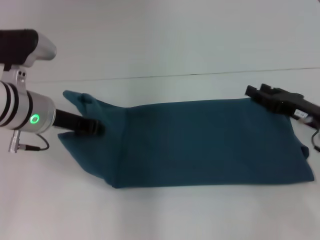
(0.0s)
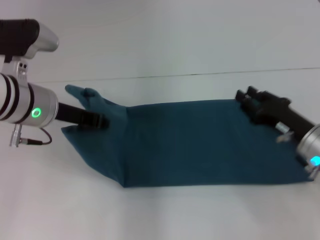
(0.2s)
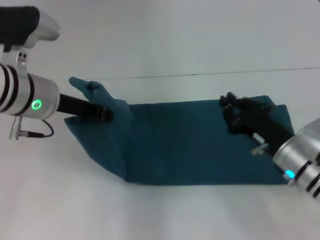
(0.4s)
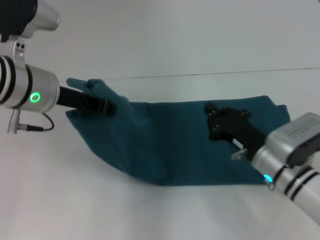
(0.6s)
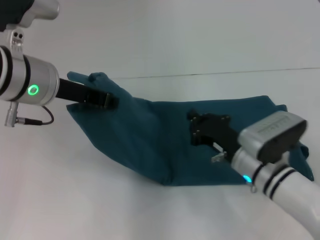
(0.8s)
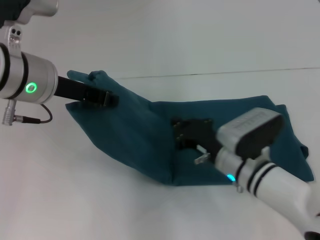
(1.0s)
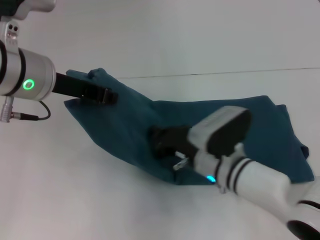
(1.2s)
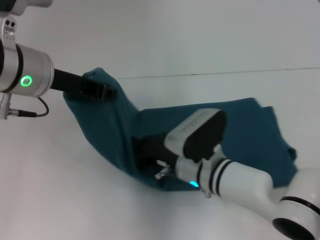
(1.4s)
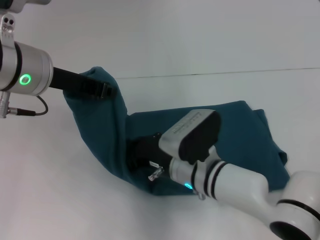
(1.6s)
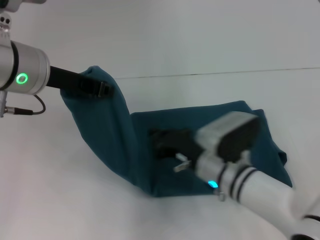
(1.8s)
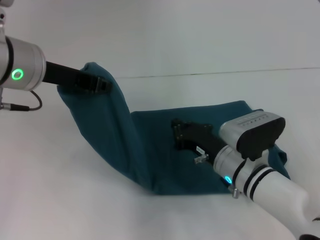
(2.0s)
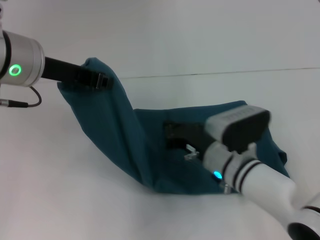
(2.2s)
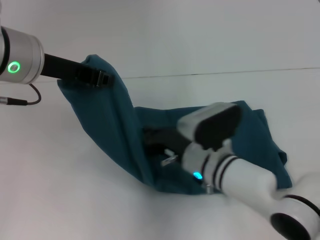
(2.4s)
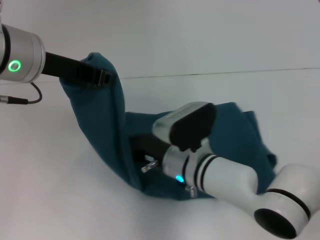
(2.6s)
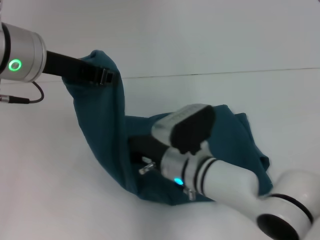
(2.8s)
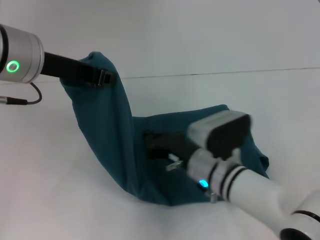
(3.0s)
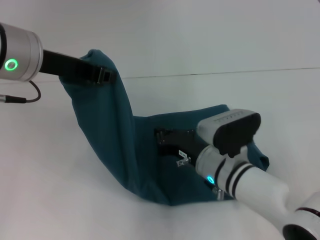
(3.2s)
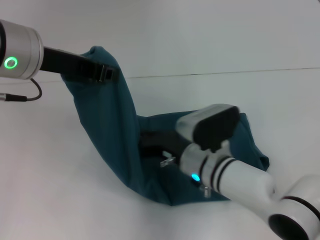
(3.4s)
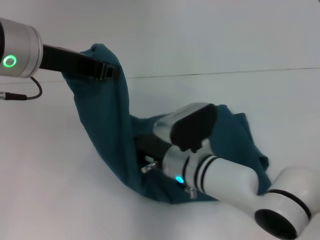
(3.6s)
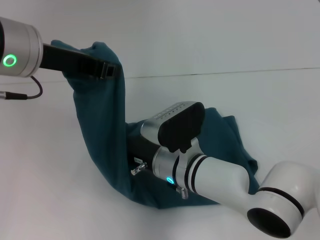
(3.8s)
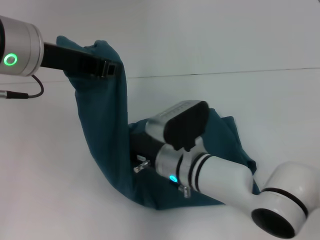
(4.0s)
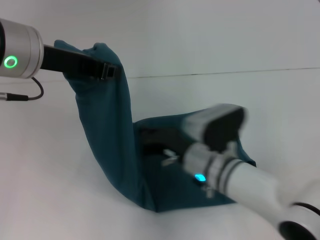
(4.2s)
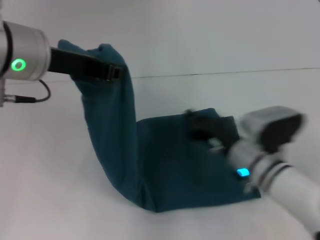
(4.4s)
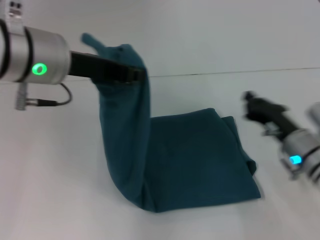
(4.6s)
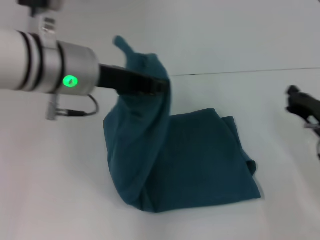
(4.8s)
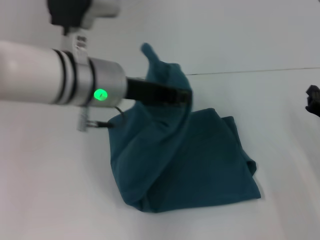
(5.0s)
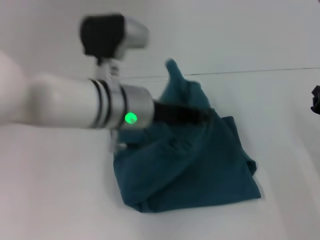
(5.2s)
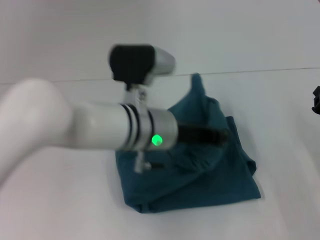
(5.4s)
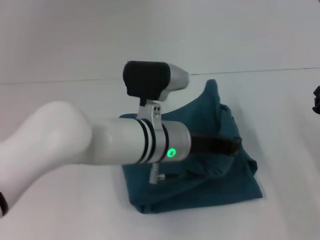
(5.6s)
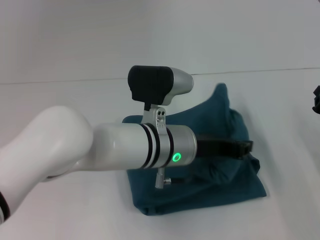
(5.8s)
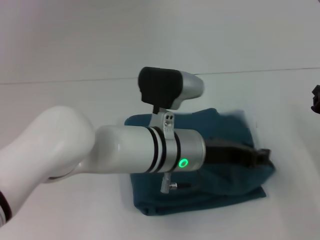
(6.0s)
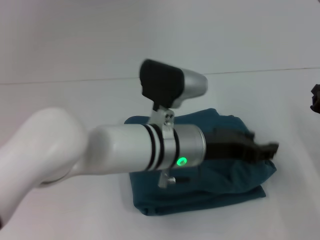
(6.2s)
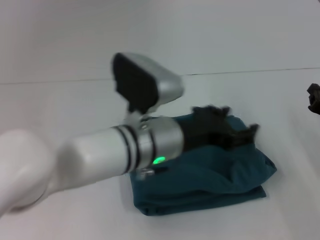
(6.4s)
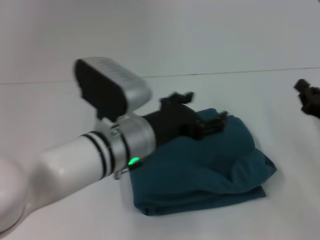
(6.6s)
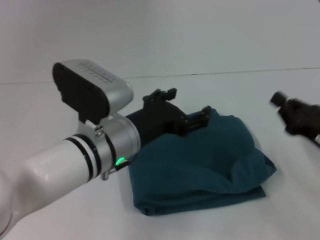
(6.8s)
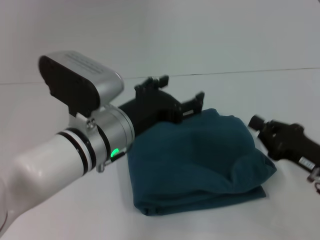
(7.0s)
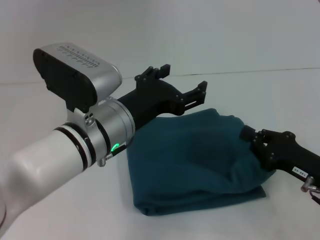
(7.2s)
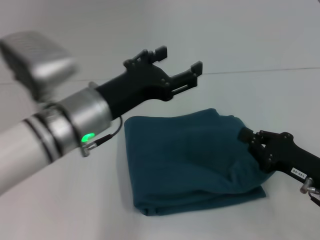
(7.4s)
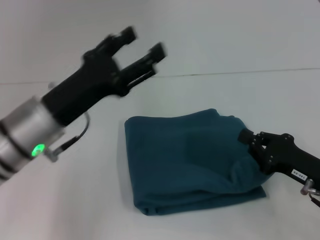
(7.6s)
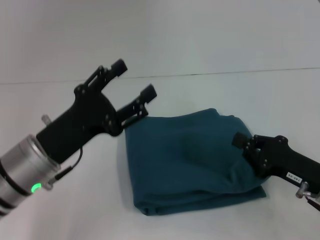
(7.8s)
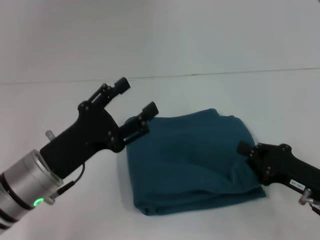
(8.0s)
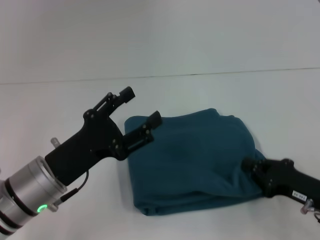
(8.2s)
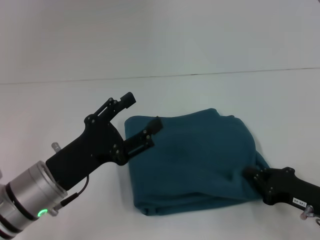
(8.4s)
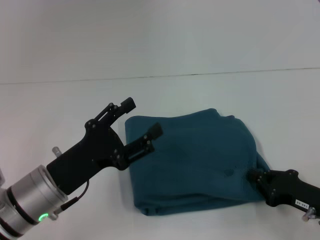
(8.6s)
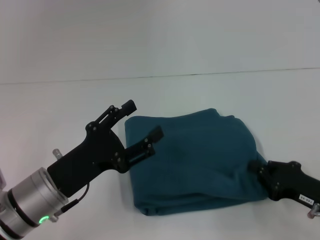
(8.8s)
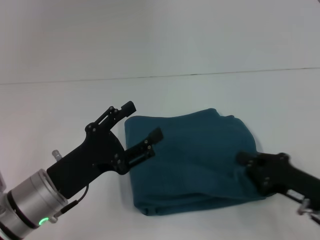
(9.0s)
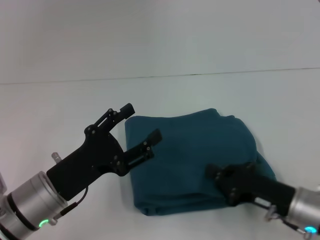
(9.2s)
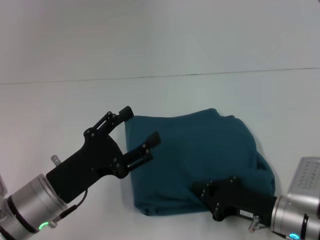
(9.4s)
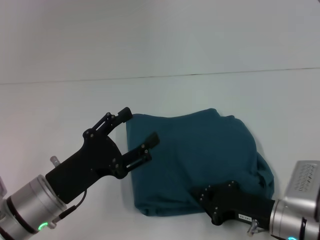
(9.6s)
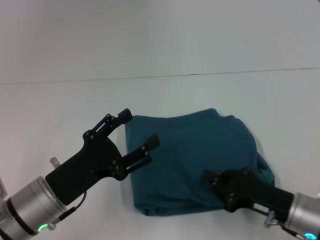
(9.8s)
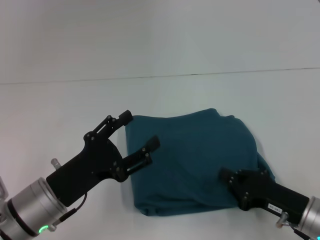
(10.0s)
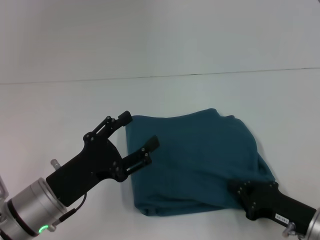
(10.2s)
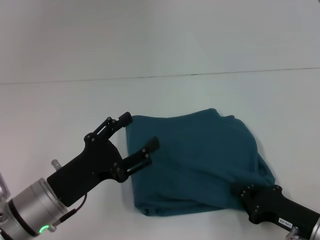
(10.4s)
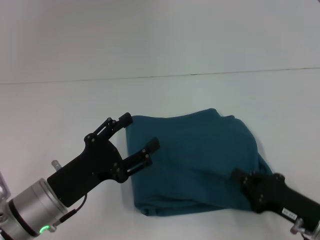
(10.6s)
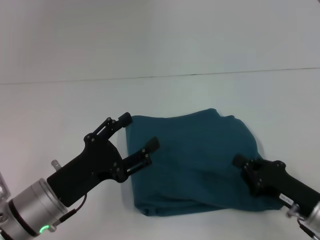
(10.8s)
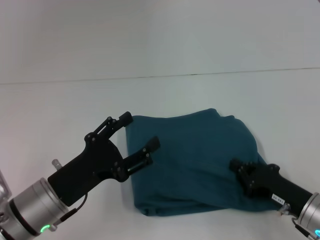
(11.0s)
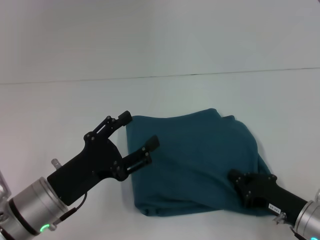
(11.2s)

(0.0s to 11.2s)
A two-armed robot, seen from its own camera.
Step, 0.0s - 3.8s: Press the middle of the clothes with your right hand.
Step, 4.0s - 6.0s: Fold the clothes to the left.
0.0s - 1.6s: The left gripper shifts about 10 cm upward, while the right gripper shifts approximately 25 cm to the left, and closes up.
1.6s - 3.2s: The right gripper moves left and right over approximately 10 cm, changing direction 2 times.
3.2s - 4.8s: The right gripper travels to the right by approximately 20 cm, while the left gripper is displaced to the right by approximately 5 cm.
4.8s - 6.4s: The left gripper is displaced downward and to the right by some 15 cm, and opens its fingers.
6.4s - 8.0s: The left gripper travels to the left by roughly 15 cm, and opens up. The right gripper shifts roughly 5 cm backward.
8.0s - 9.6s: The right gripper goes some 5 cm to the left.

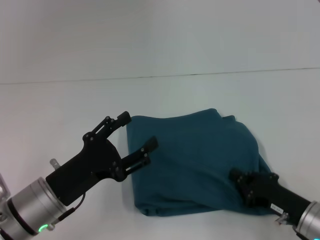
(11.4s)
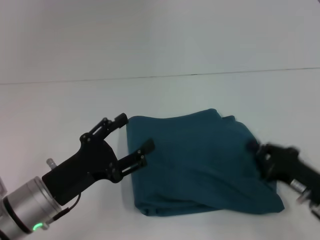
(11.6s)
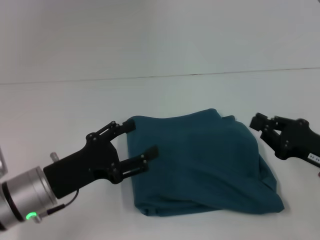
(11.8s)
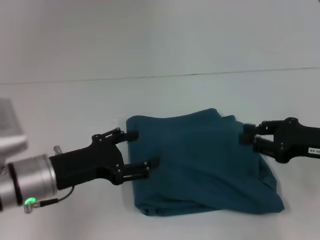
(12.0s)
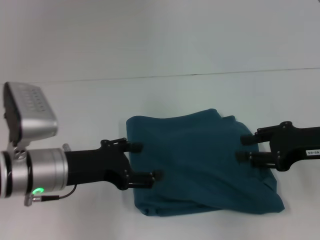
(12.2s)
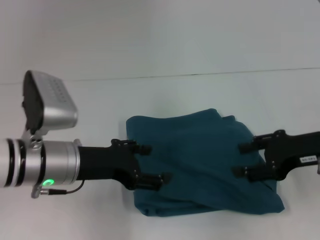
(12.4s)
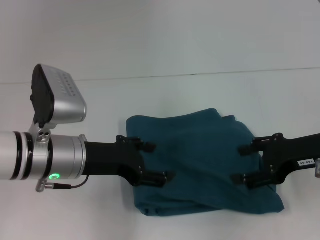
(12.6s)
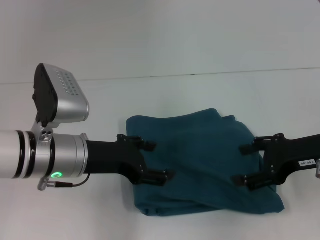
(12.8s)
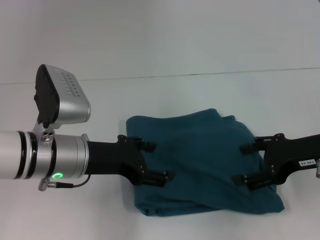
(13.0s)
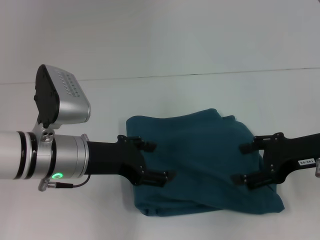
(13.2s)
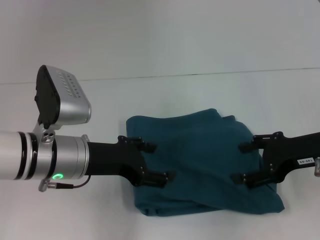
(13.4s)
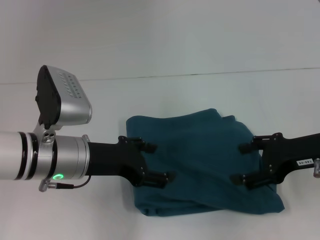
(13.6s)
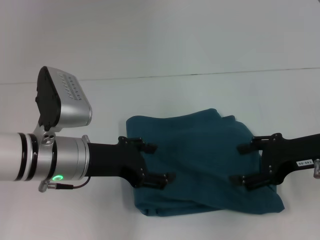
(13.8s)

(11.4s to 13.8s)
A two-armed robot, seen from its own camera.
11.4s - 12.6s: The right gripper moves upward and forward, roughly 15 cm, and opens, while the left gripper is displaced upward and forward by roughly 10 cm.
12.6s - 13.8s: The two grippers keep their place.

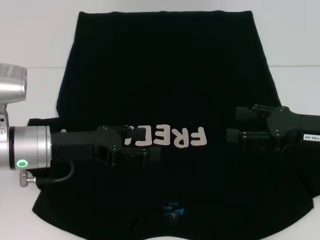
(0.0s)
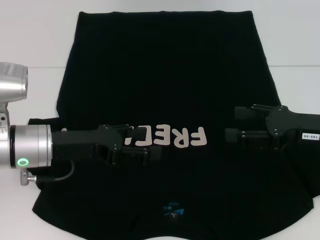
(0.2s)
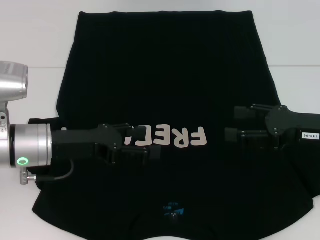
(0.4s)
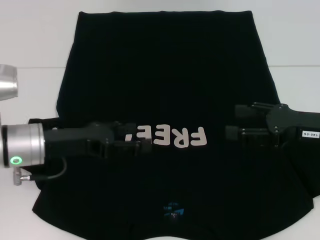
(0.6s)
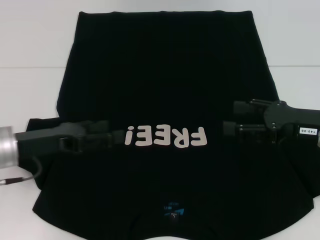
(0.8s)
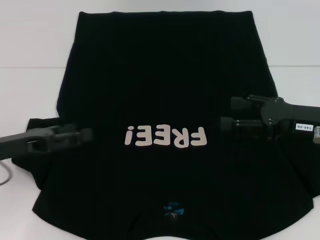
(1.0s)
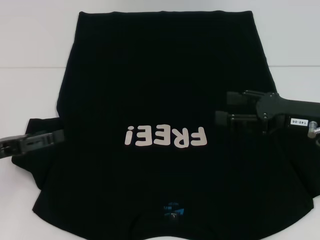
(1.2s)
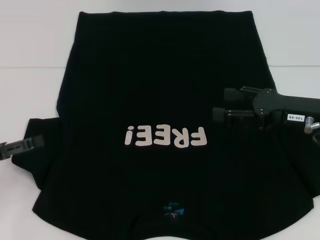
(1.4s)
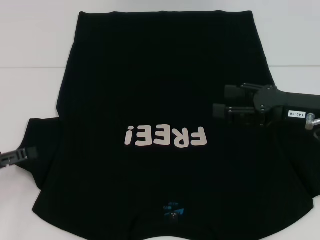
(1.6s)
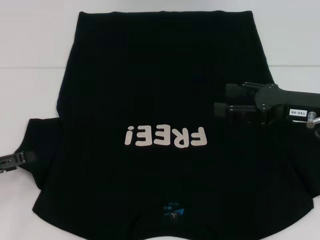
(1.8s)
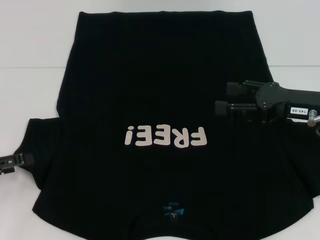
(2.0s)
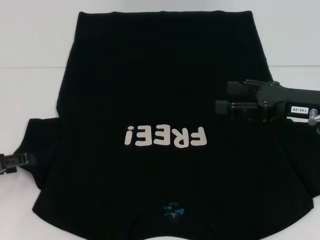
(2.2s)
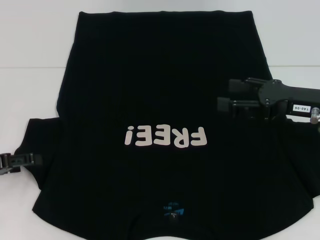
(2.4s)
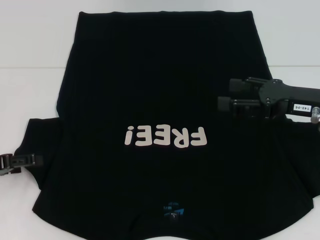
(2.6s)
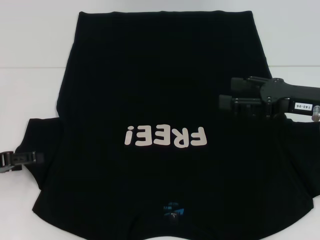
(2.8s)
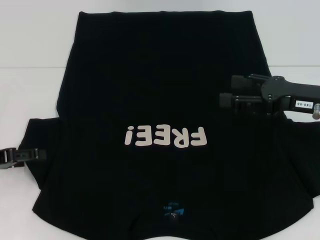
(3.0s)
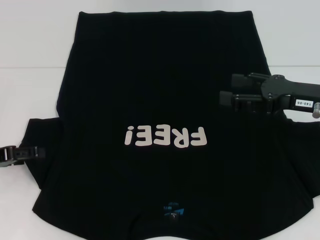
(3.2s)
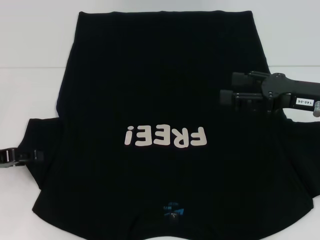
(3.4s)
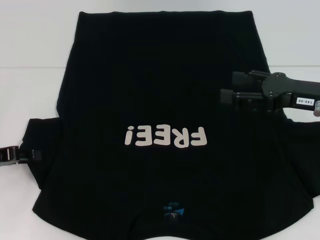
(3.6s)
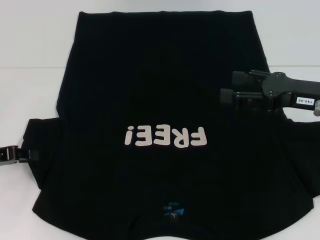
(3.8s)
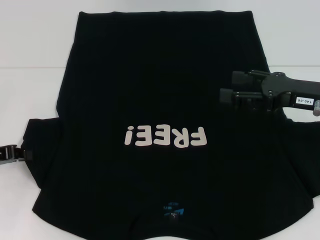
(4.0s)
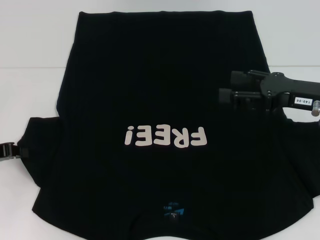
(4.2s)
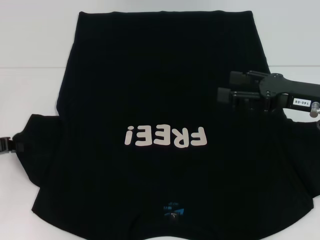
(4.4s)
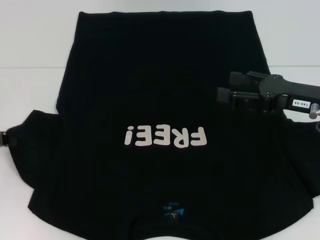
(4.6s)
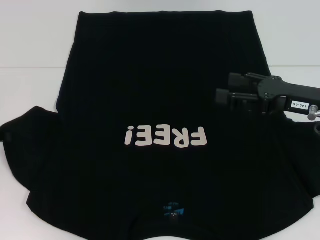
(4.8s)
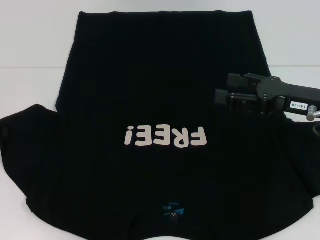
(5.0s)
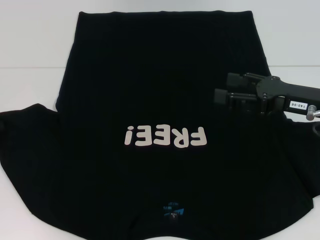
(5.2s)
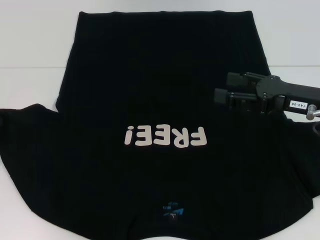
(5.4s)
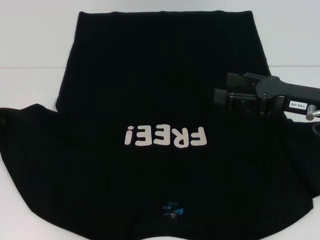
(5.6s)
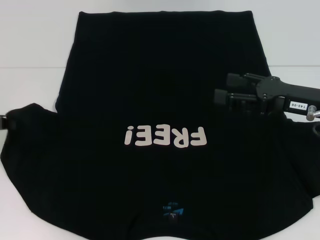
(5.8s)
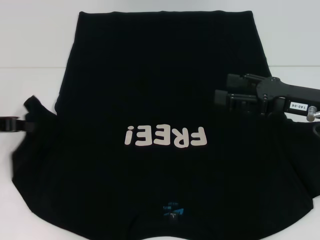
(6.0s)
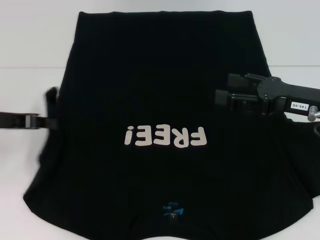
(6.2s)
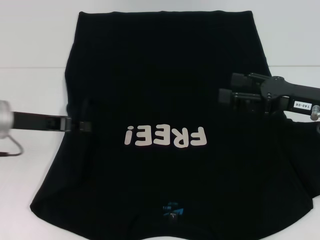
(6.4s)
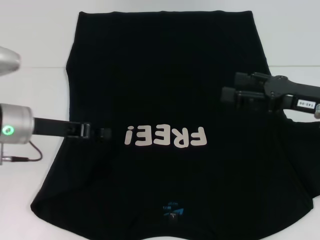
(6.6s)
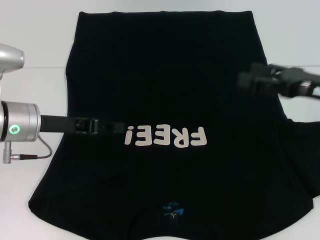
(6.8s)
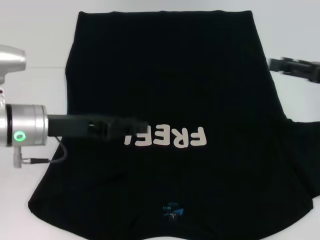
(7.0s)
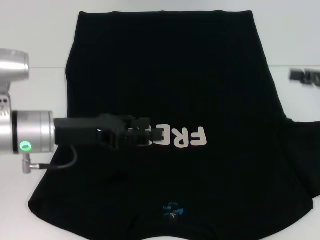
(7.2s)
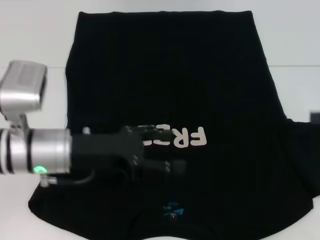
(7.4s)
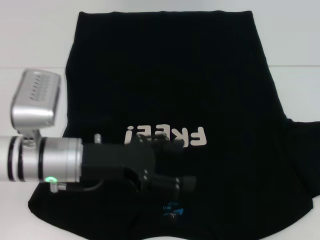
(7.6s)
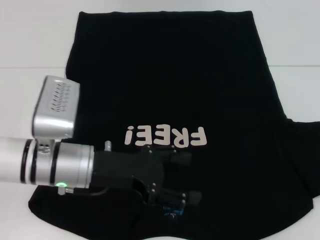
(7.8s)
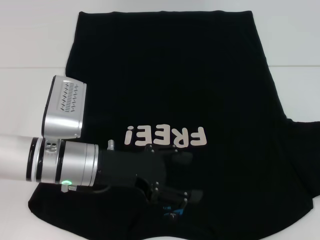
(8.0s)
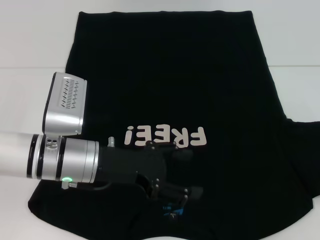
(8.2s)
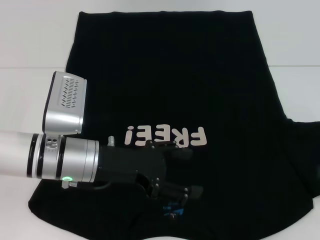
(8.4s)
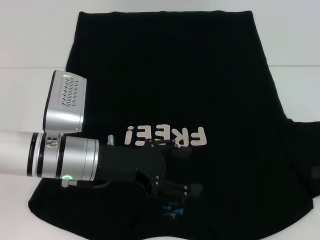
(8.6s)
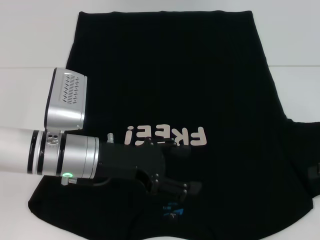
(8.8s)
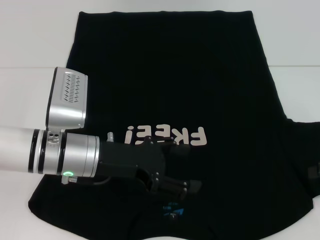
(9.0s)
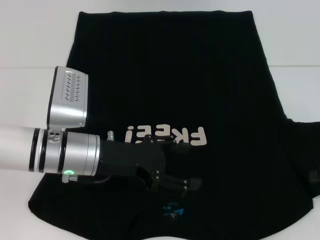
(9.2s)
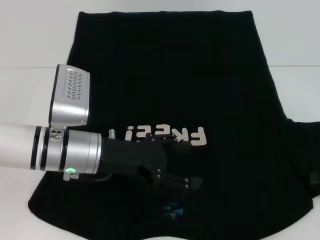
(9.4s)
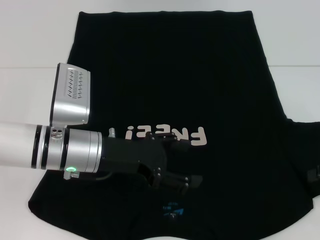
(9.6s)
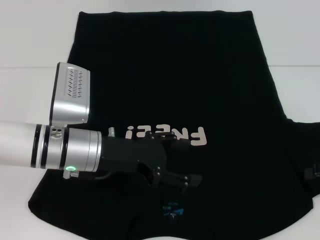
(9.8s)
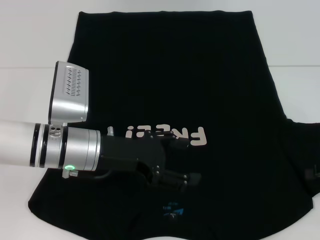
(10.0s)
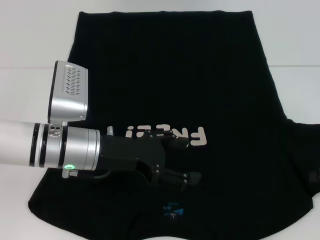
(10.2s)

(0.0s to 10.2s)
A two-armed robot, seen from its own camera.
0.0s - 1.4s: The left gripper is displaced to the left by about 15 cm.
1.4s - 3.0s: The grippers stay close to where they were, moving slightly.
3.0s - 4.4s: The left gripper closes.
4.4s - 5.8s: The grippers move only a little.
5.8s - 7.2s: The left gripper shifts some 15 cm to the right, and opens, while the right gripper goes approximately 10 cm to the right.
7.2s - 8.8s: The left gripper is displaced to the right by about 5 cm, and opens up, while the right gripper travels downward by approximately 5 cm.
8.8s - 10.2s: The right gripper closes.
